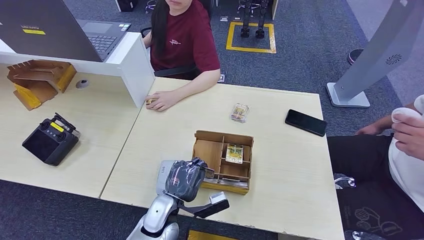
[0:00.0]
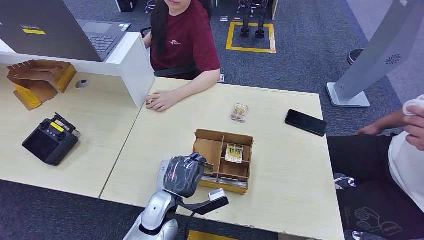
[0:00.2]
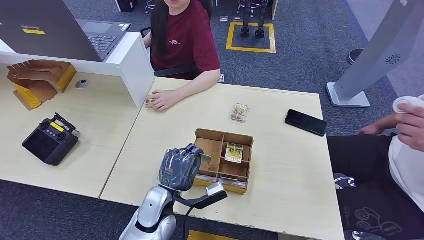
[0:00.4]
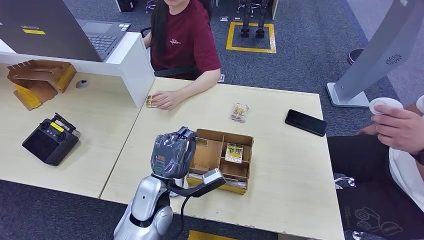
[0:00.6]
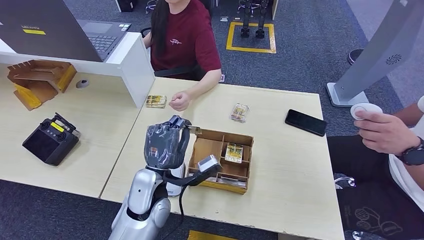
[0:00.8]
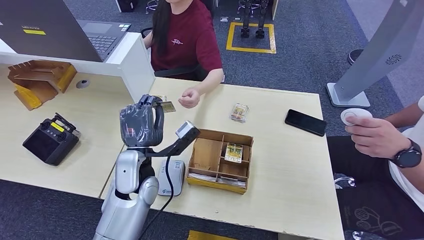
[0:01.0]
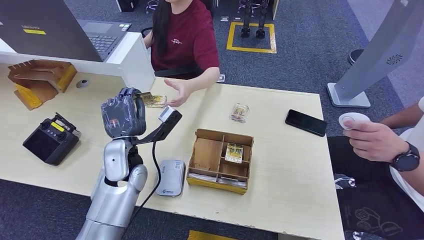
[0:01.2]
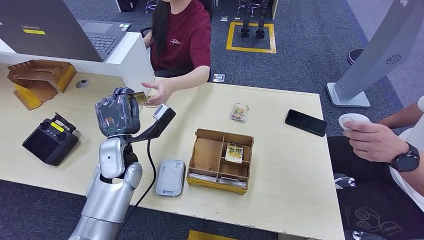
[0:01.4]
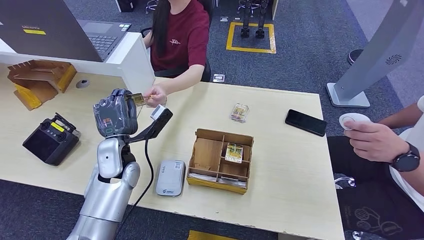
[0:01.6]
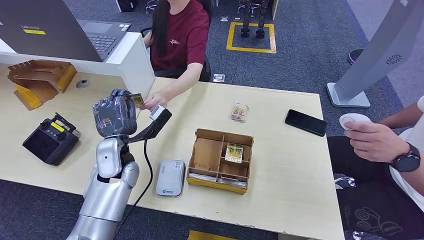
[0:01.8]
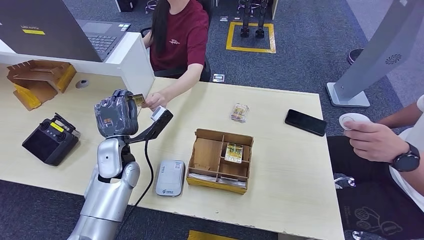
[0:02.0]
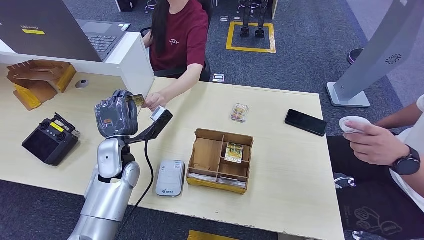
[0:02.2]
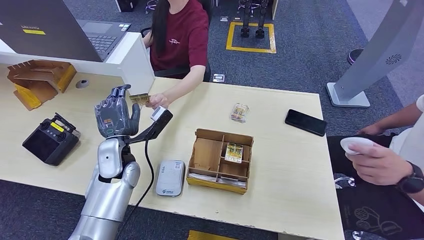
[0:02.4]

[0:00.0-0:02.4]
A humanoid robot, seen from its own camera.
Step, 0:00.6 to 0:02.4: Hand the room key to the person.
0:00.0 to 0:01.2: The left hand heads upward, forward and to the left, covering approximately 20 cm.
0:01.2 to 0:02.4: The hands make only small movements.

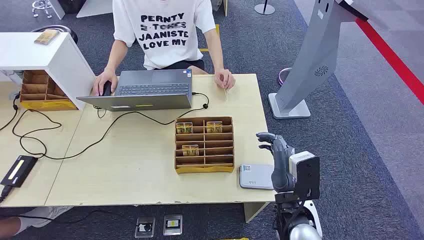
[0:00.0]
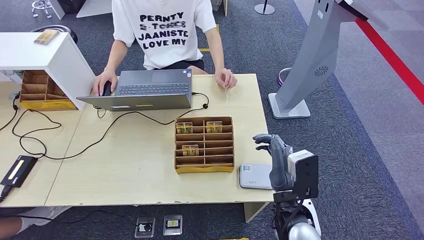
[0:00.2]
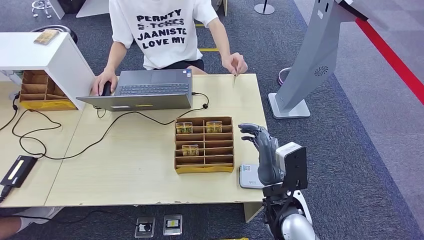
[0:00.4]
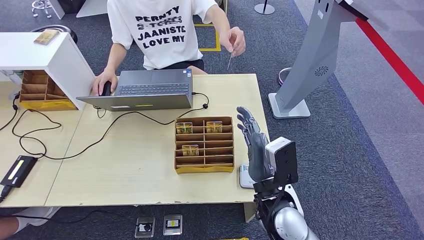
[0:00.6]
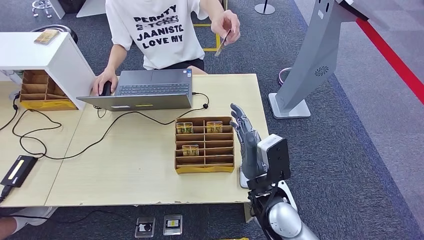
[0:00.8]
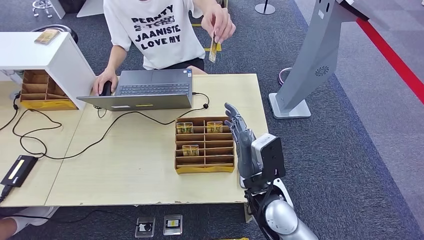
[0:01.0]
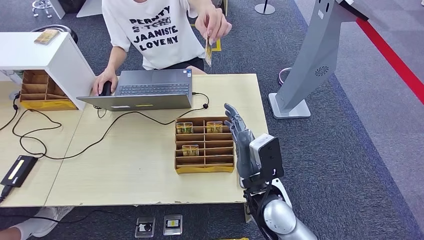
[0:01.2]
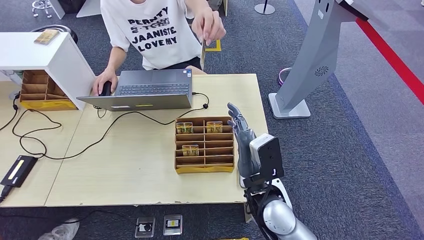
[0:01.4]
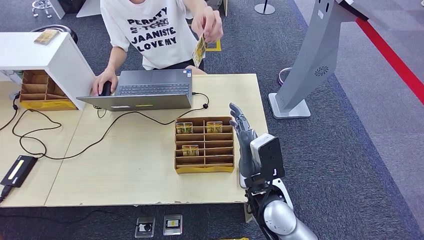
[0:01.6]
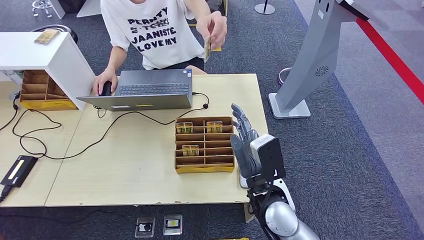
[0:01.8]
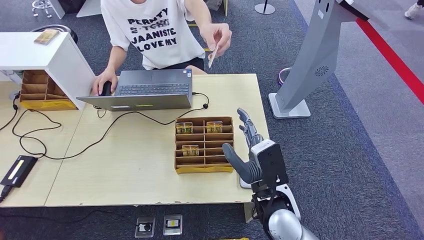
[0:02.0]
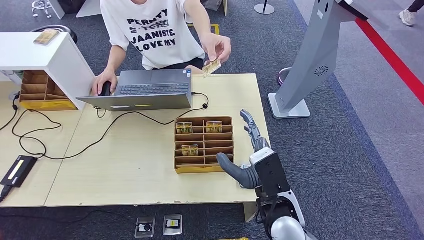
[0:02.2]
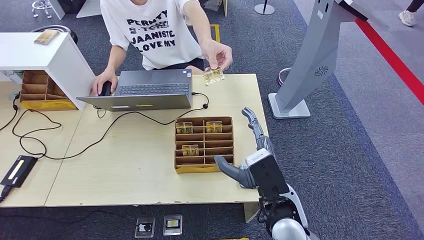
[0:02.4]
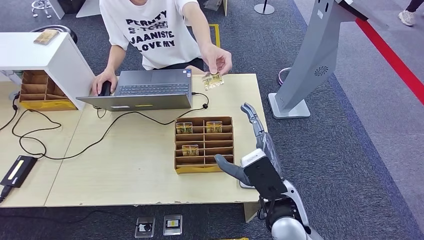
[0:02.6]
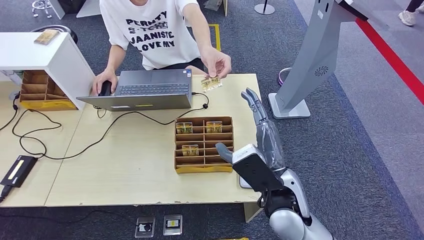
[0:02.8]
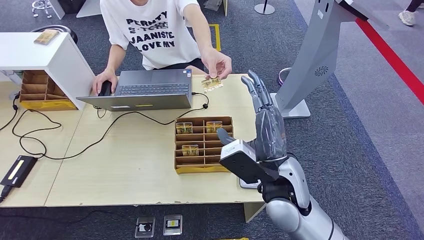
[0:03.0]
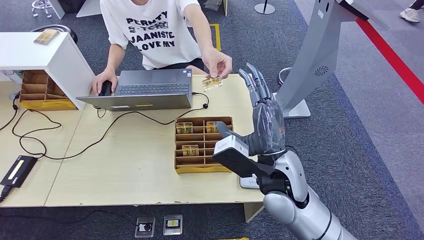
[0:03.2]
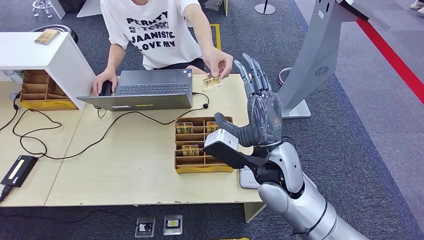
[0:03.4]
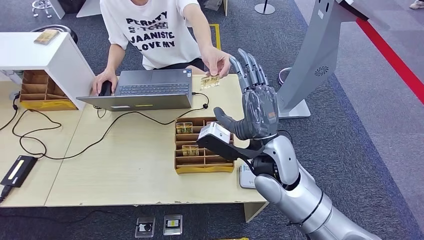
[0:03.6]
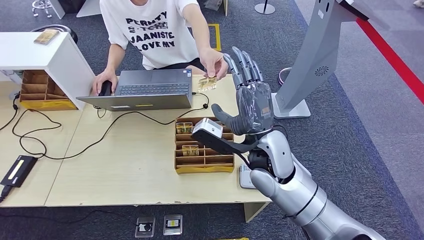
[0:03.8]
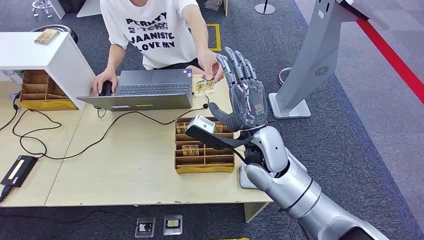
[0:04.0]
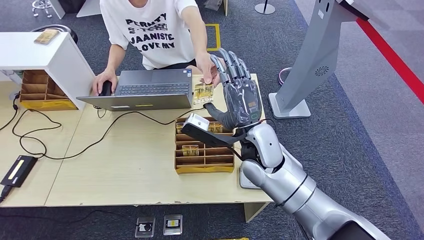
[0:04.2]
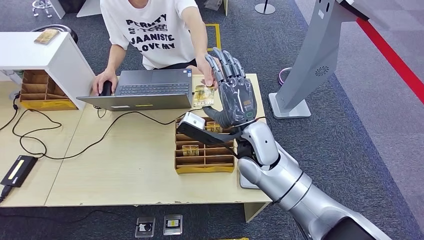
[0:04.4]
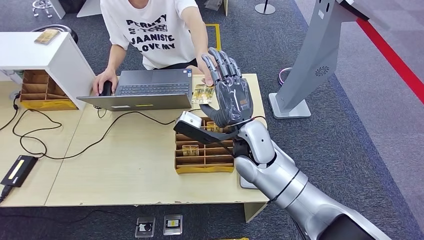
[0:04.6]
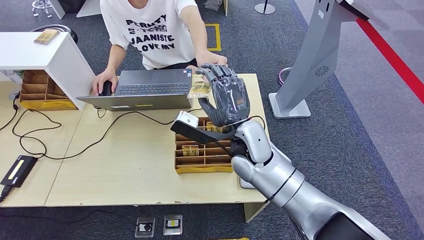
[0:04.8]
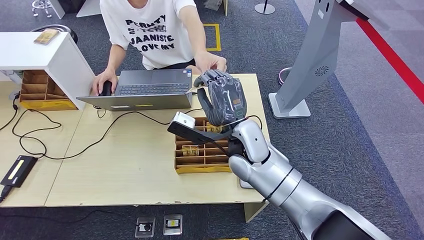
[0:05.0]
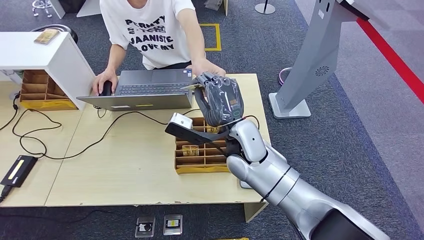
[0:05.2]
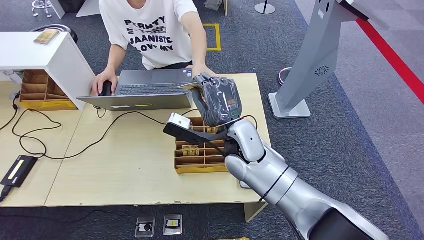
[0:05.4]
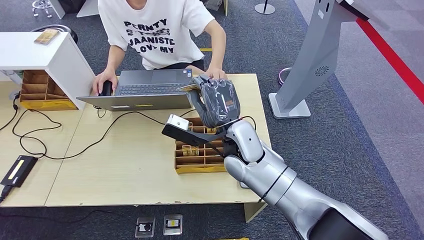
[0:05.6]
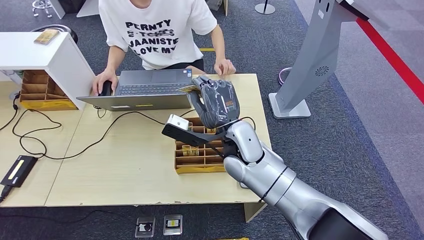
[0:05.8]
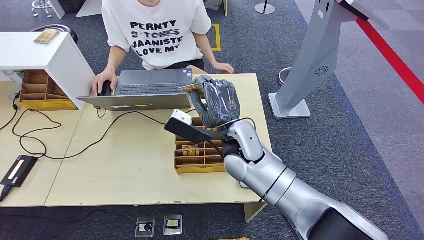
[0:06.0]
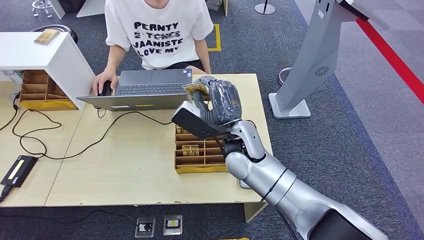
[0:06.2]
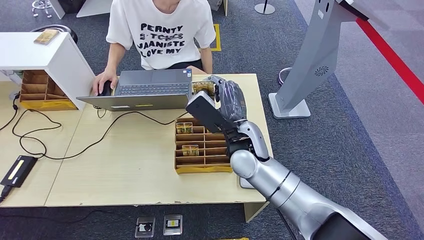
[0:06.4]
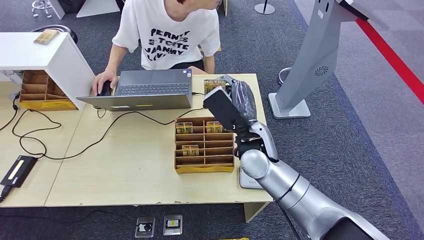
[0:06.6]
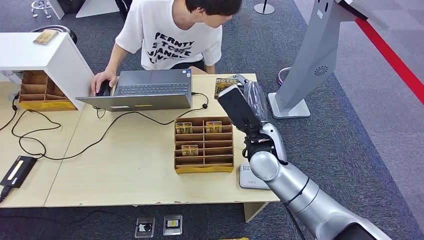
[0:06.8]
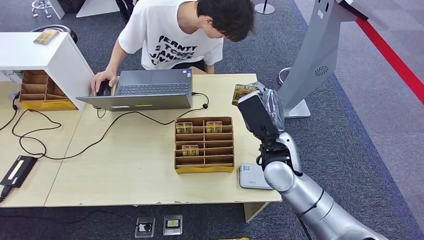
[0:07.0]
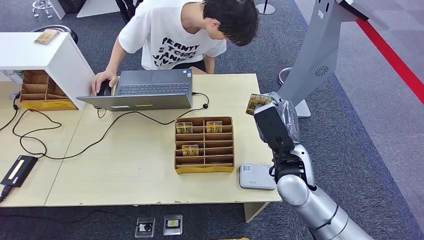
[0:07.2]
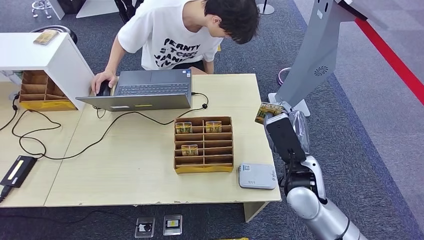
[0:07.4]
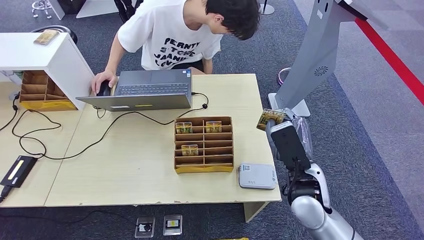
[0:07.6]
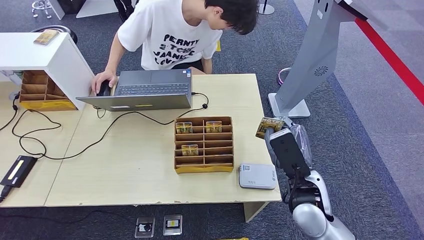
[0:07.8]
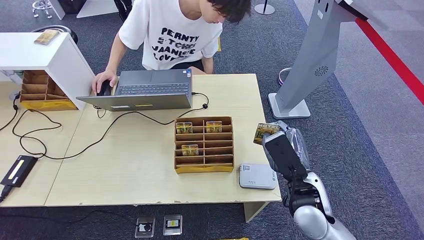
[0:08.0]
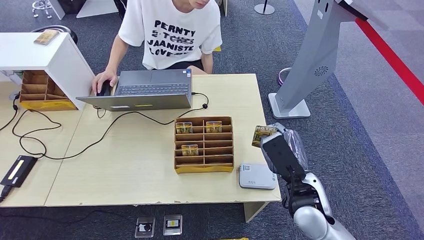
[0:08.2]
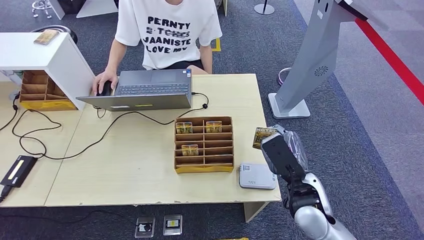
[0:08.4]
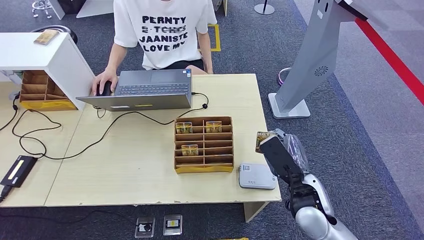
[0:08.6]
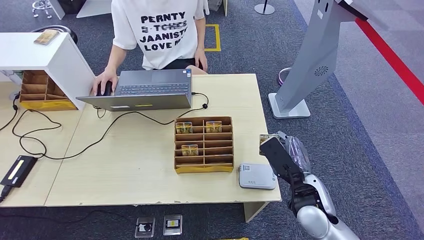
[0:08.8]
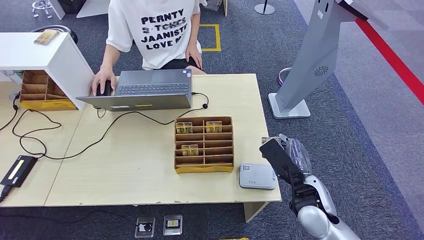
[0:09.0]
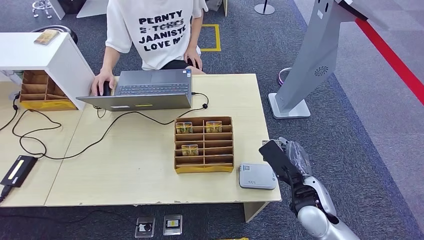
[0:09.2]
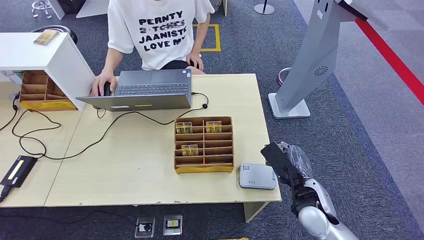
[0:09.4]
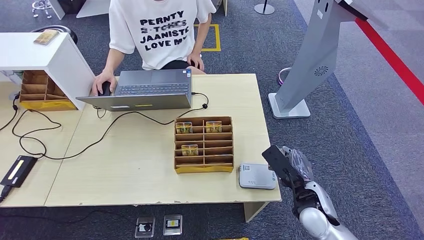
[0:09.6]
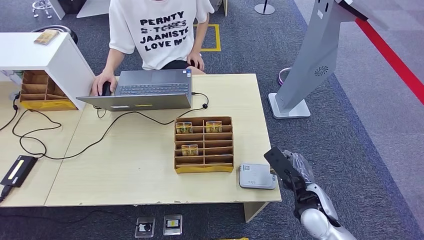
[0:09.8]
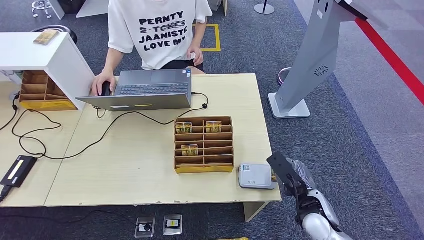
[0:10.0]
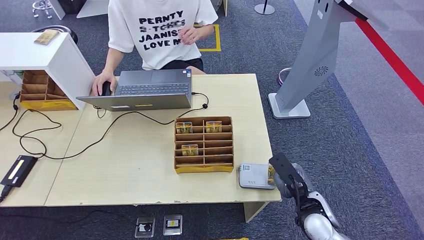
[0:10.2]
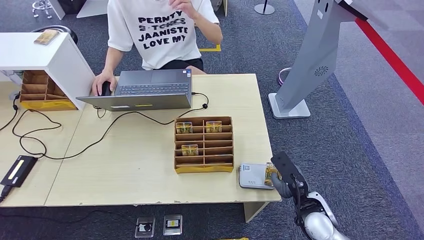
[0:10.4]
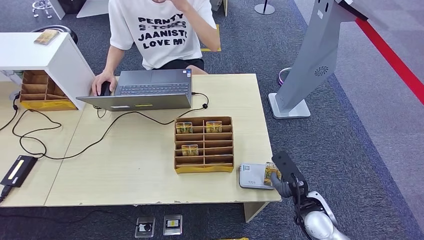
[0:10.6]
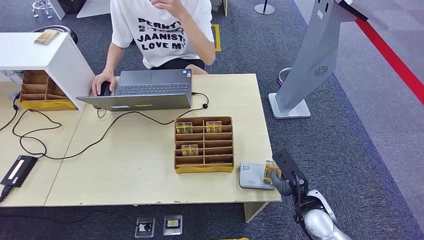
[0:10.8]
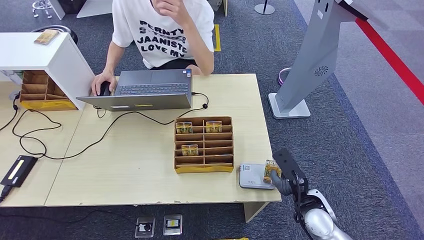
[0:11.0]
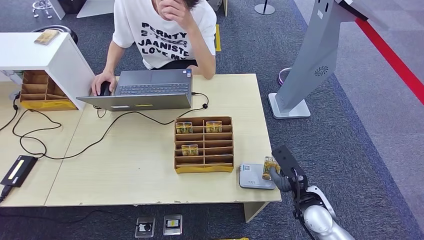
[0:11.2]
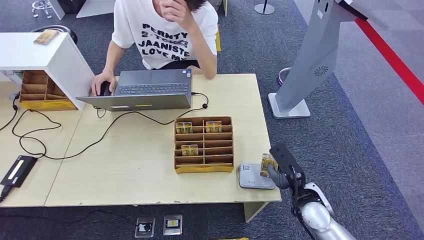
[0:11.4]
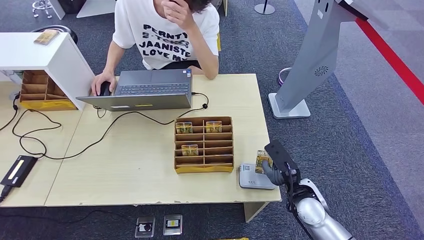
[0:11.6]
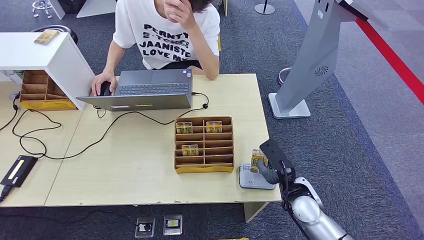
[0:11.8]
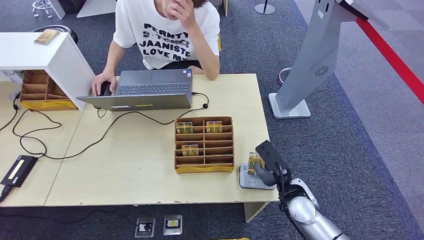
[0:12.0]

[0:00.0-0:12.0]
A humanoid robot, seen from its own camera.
Step, 0:00.0 to 0:06.2: Take the ID card from the person's hand.
0:01.6 to 0:06.0: Both hands stay put.
0:06.0 to 0:07.6: The right hand goes approximately 10 cm to the right.
0:07.6 to 0:09.0: The right hand changes place by some 5 cm.
0:09.0 to 0:10.4: The right hand moves downward, some 5 cm.
0:10.4 to 0:12.0: The hands make only small movements.

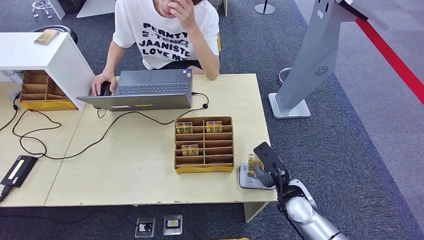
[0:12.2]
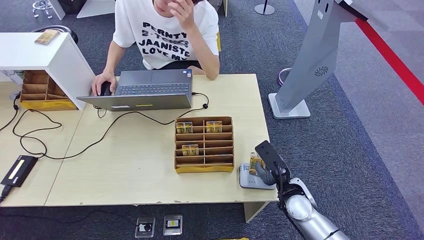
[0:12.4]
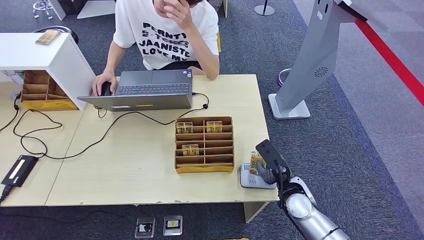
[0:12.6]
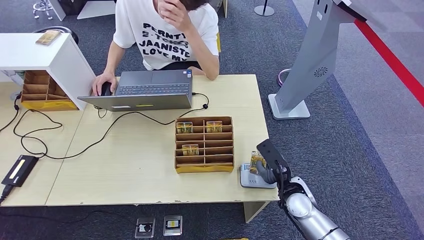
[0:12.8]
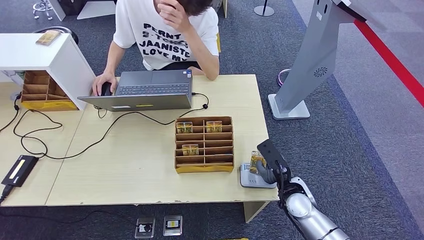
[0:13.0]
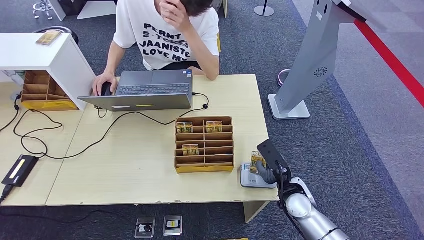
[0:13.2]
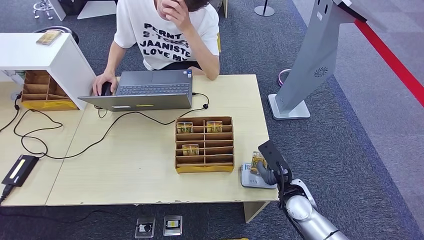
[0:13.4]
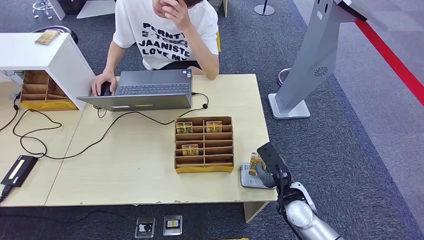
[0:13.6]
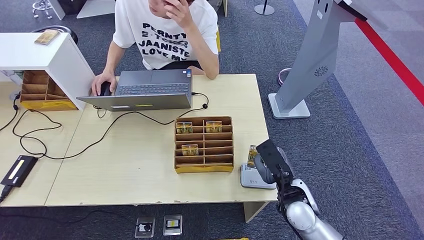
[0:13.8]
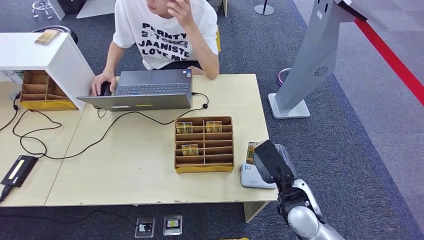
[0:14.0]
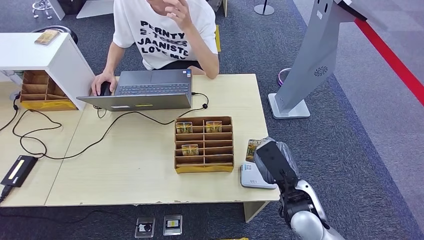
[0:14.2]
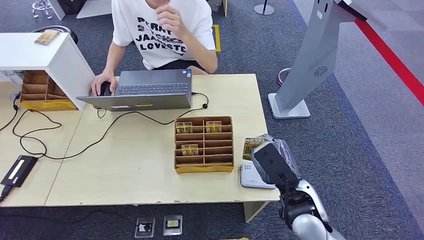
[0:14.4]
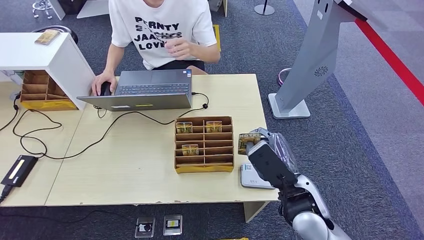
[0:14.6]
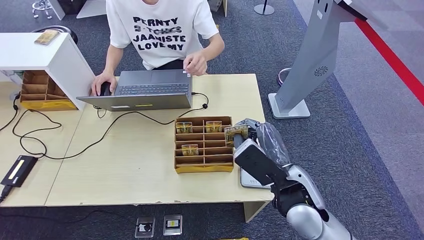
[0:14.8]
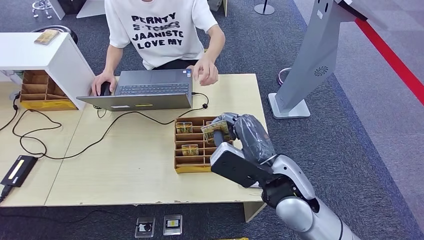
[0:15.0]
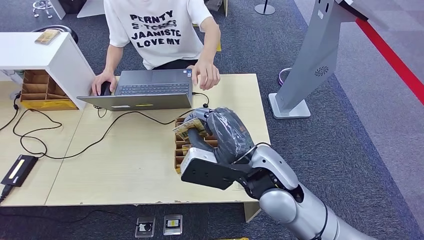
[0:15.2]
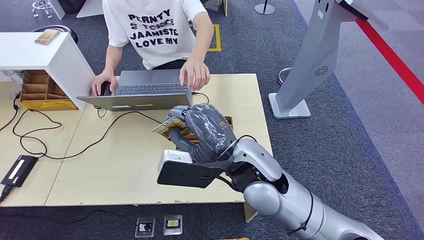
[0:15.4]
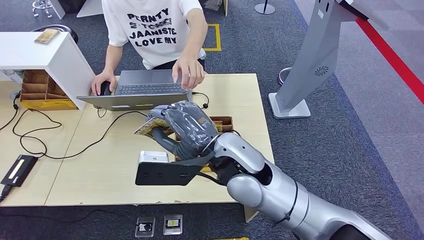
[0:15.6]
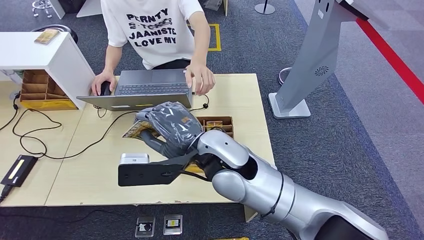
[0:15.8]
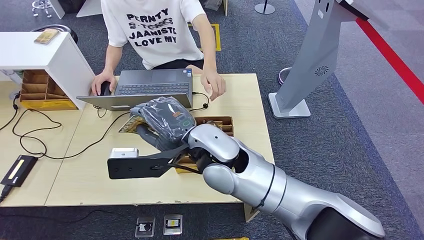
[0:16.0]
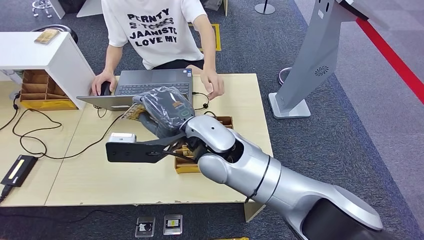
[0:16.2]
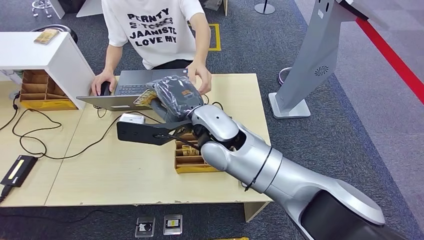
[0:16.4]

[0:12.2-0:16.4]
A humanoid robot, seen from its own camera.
0:12.2 to 0:13.6: The hands move only a little.
0:13.6 to 0:15.0: The right hand heads upward and to the left, covering approximately 20 cm.
0:15.0 to 0:16.4: The right hand is displaced to the left and forward by about 15 cm.
